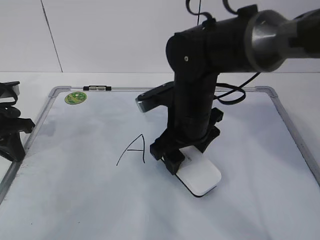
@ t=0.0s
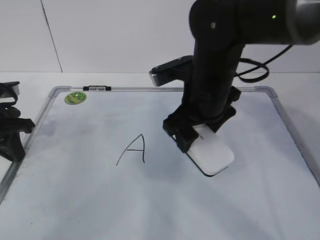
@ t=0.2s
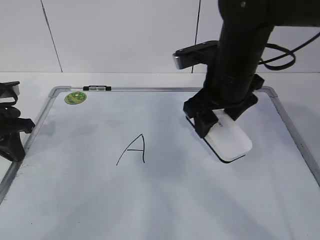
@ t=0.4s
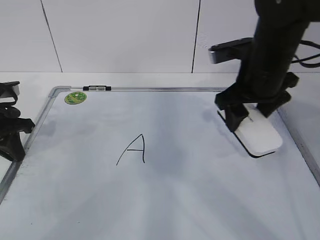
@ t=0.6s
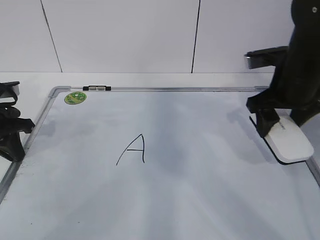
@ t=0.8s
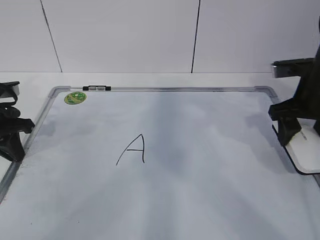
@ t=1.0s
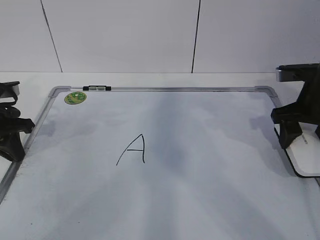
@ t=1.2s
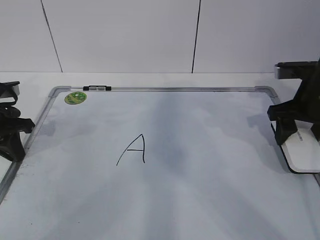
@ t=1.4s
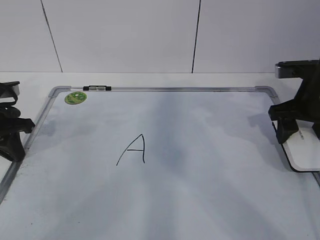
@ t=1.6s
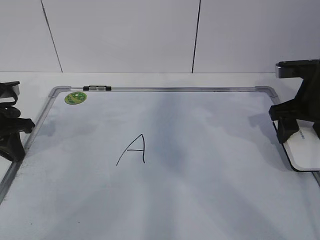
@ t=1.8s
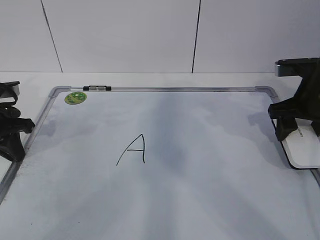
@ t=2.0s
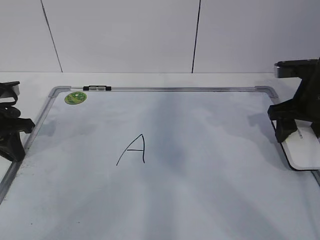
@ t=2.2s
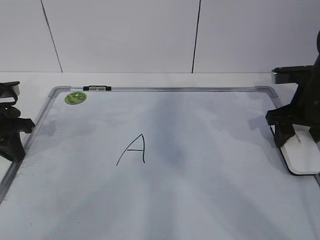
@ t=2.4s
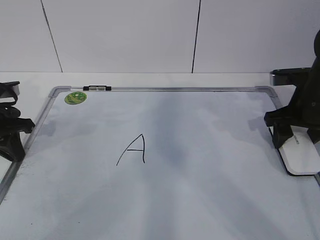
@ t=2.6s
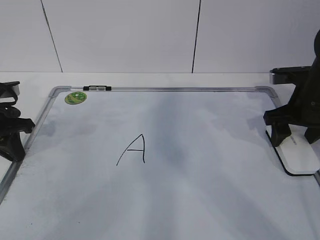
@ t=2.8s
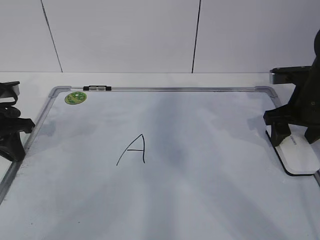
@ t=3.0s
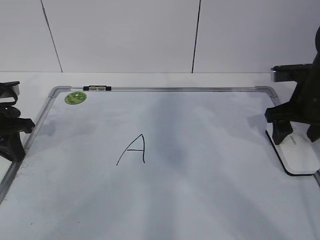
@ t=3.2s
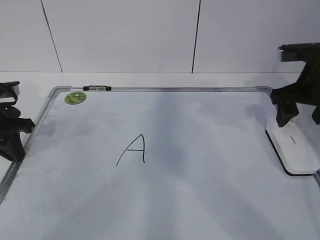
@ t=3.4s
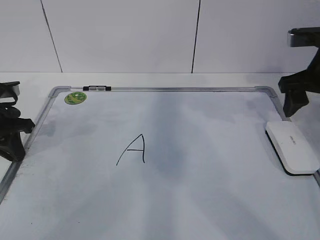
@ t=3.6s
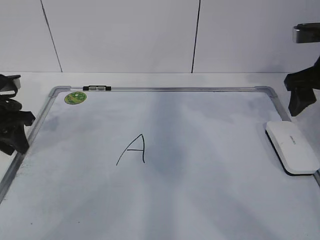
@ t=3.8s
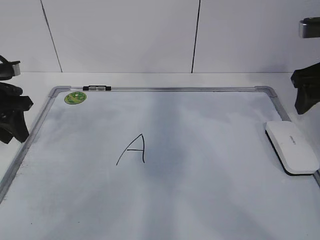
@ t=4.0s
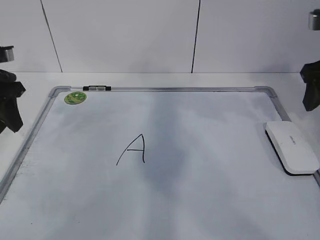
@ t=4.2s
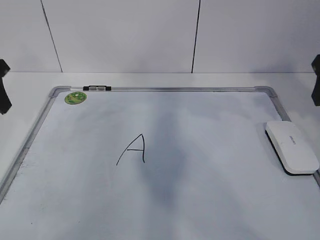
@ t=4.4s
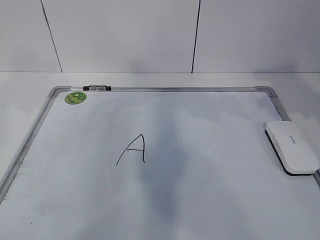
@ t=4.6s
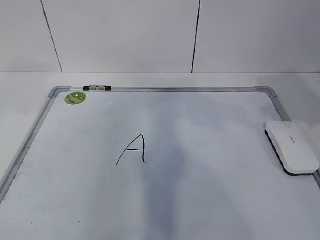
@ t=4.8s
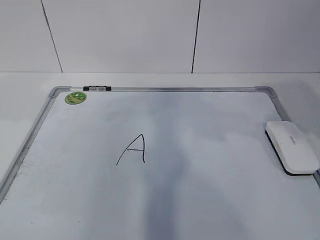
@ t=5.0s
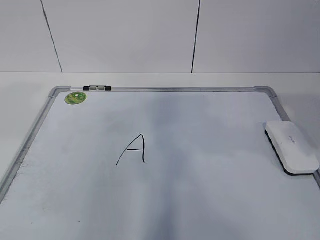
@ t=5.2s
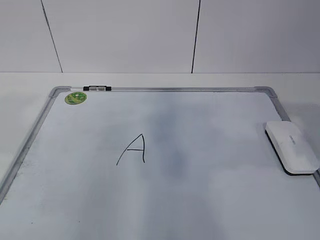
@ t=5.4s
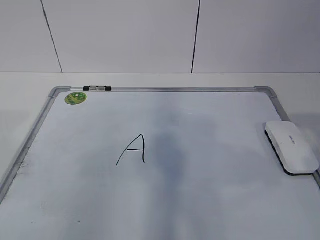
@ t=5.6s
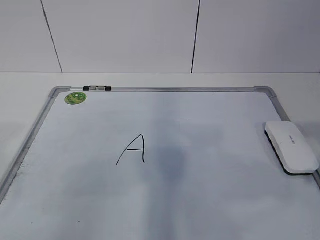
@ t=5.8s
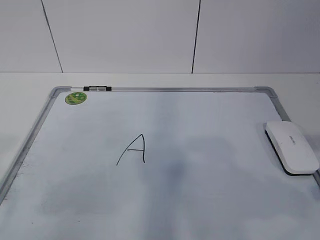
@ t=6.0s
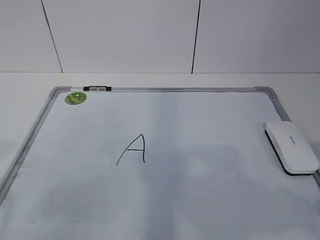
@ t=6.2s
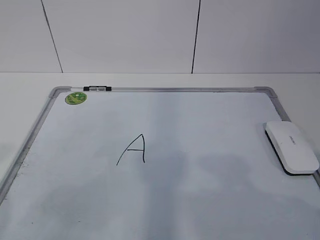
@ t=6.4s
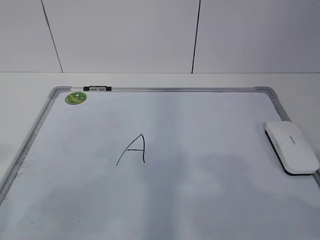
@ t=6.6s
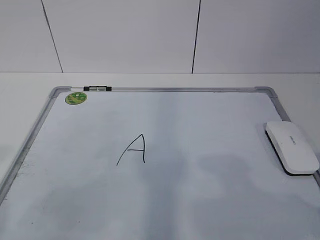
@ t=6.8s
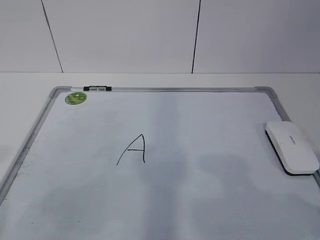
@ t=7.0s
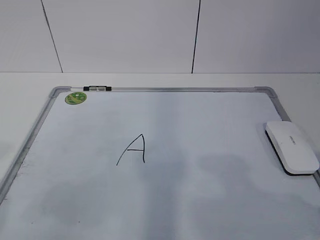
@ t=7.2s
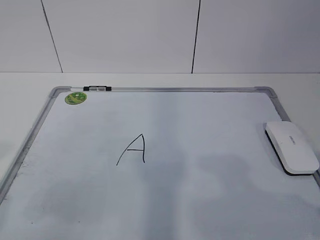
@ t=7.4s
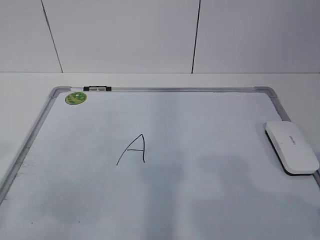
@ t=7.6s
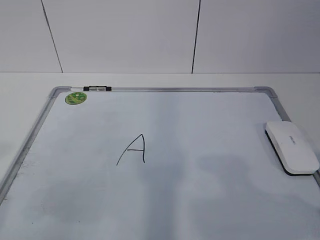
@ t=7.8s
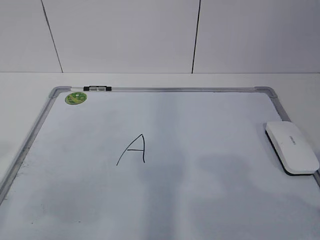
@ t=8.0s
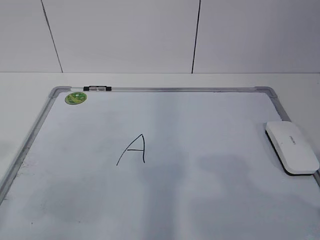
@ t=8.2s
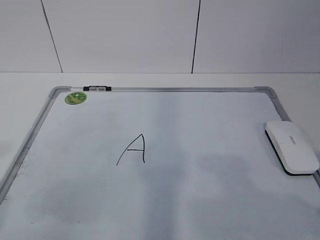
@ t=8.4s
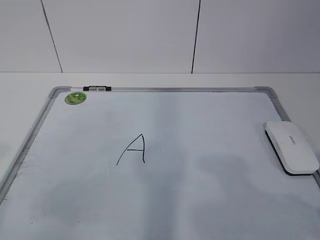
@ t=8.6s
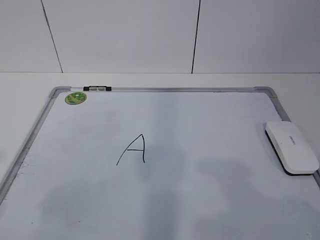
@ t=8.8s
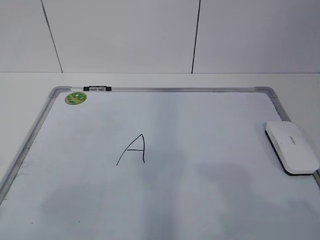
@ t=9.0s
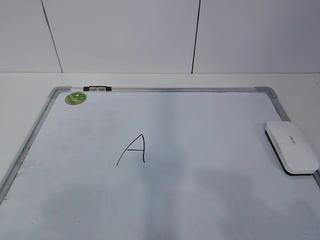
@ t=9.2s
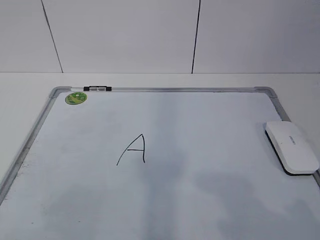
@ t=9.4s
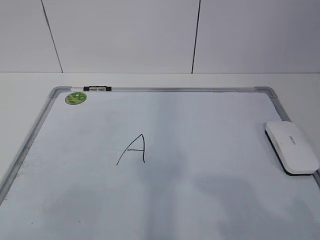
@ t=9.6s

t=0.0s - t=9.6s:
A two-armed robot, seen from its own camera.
Task of the whole recording: pick up the eraser on the blackboard and erase the letter "a".
t=0.0s - t=1.6s: The right gripper heads to the right, covering roughly 20 cm.
t=1.6s - t=3.2s: The grippers move only a little.
t=3.2s - t=4.8s: The right gripper shifts approximately 15 cm upward and backward, while the left gripper moves upward, approximately 20 cm, and opens up.
t=4.8s - t=6.4s: The two grippers go some 20 cm backward. The left gripper opens its fingers.

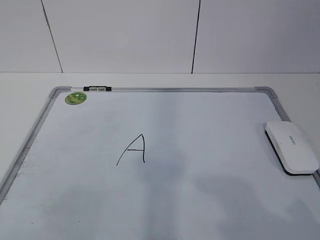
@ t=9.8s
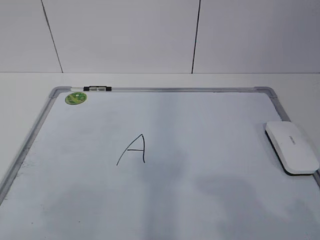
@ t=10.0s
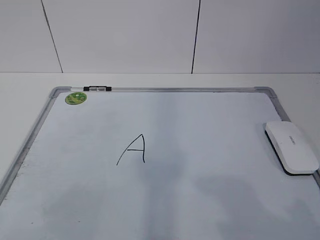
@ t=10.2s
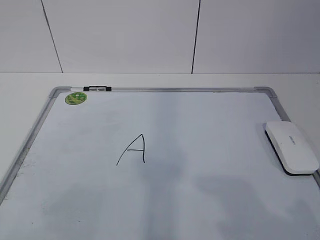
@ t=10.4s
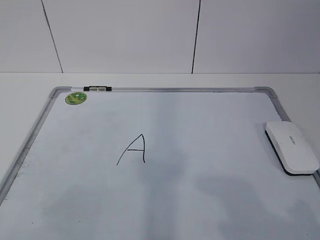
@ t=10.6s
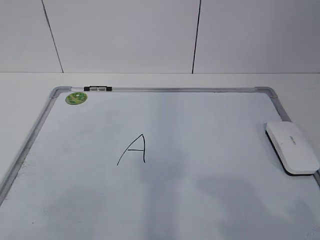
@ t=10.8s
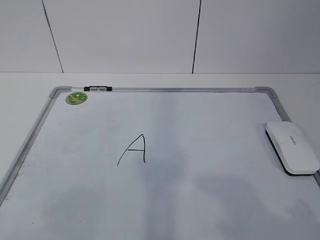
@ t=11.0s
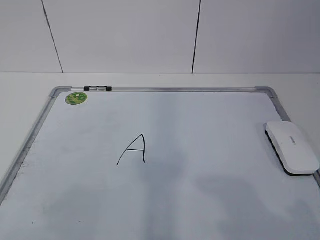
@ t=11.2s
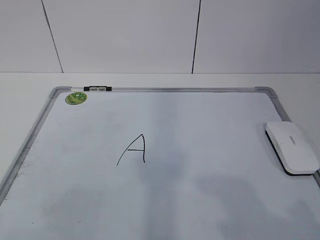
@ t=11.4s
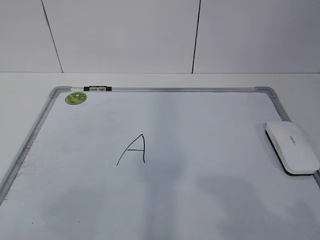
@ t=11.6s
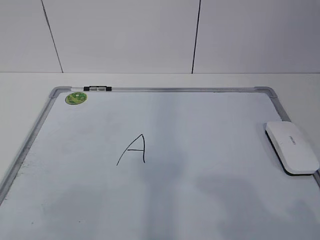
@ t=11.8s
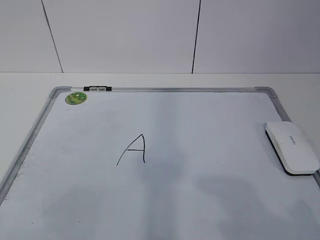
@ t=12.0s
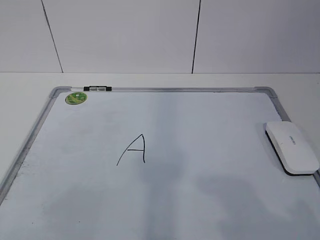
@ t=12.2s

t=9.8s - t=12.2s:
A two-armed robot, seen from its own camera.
Task of the whole recording: pick up the eraser on the blackboard and erase the letter "a".
t=9.8s - t=12.2s: Neither gripper changes place.
